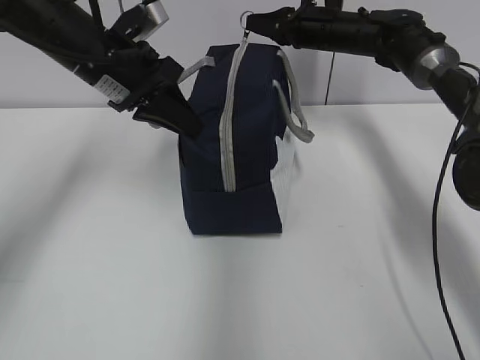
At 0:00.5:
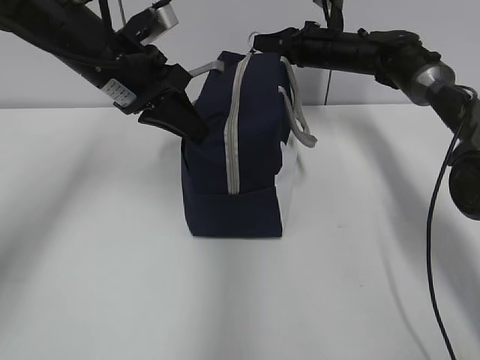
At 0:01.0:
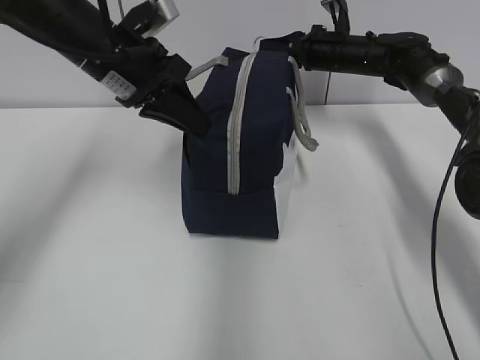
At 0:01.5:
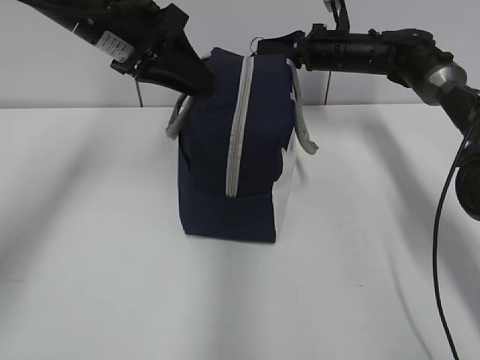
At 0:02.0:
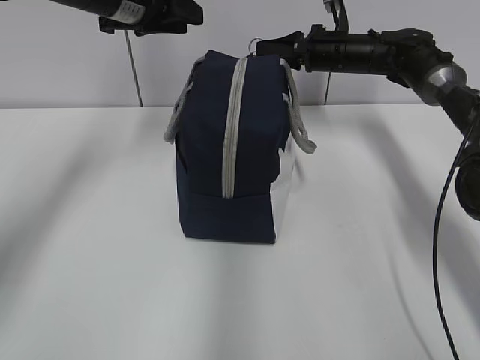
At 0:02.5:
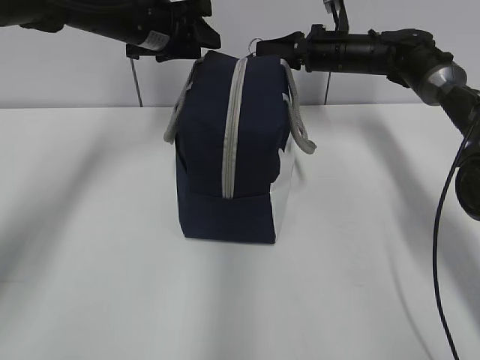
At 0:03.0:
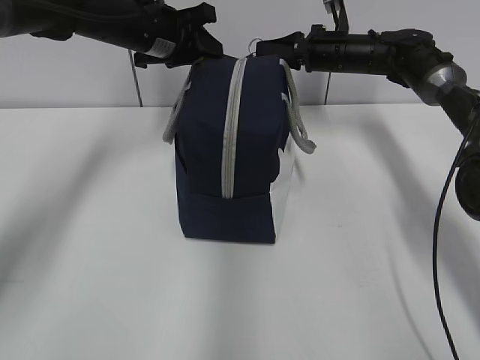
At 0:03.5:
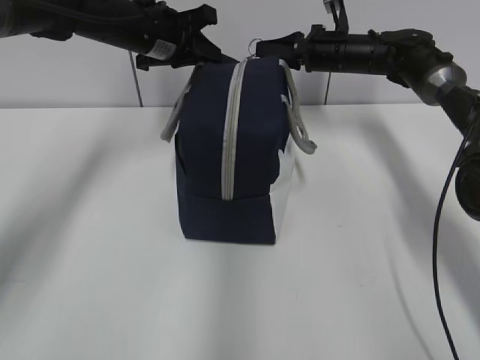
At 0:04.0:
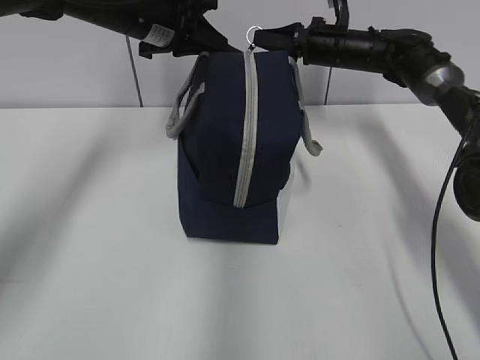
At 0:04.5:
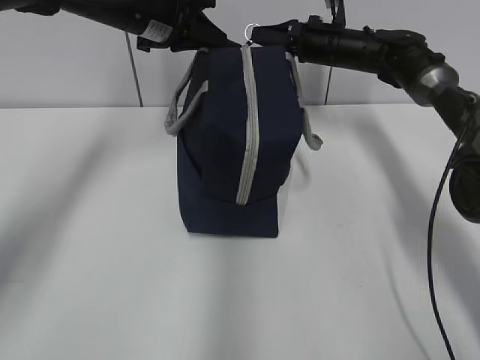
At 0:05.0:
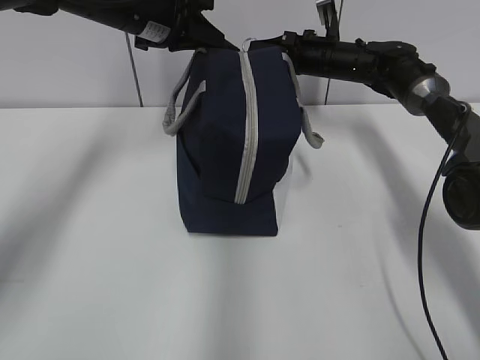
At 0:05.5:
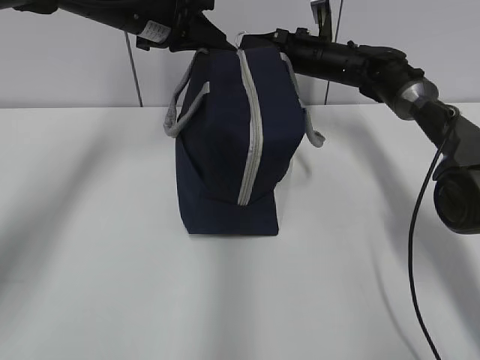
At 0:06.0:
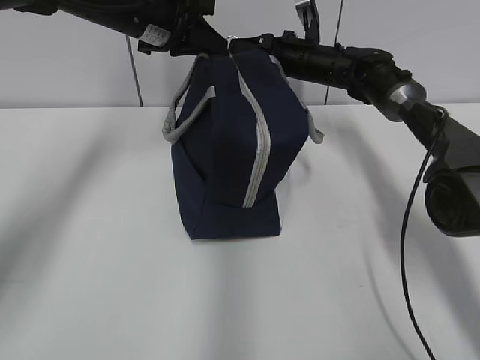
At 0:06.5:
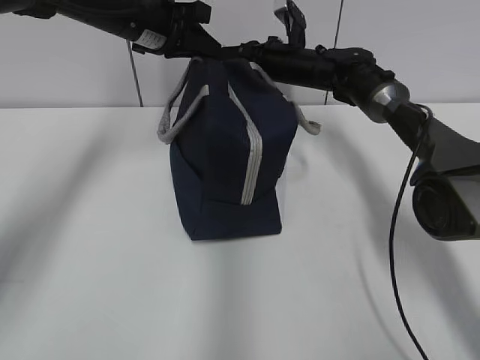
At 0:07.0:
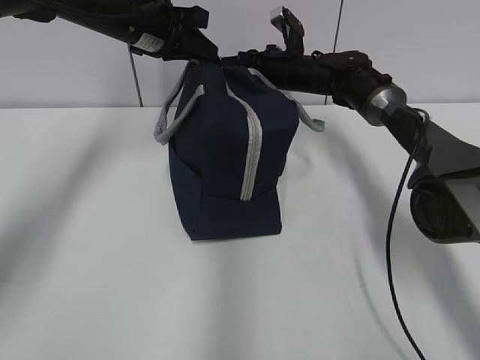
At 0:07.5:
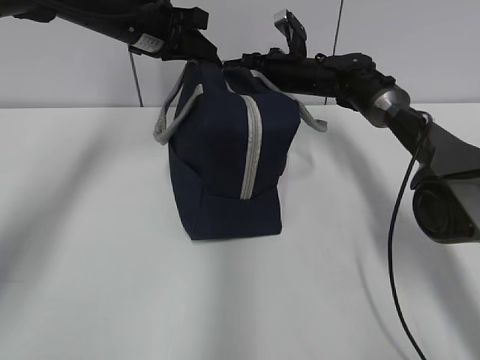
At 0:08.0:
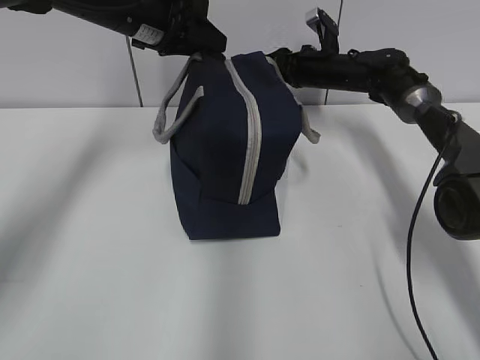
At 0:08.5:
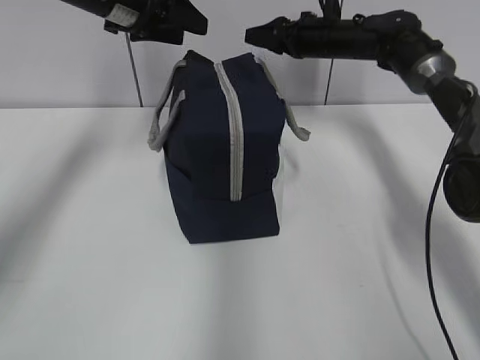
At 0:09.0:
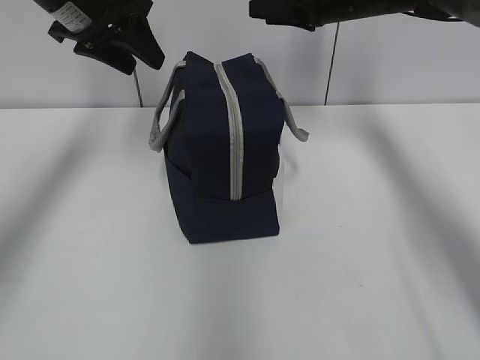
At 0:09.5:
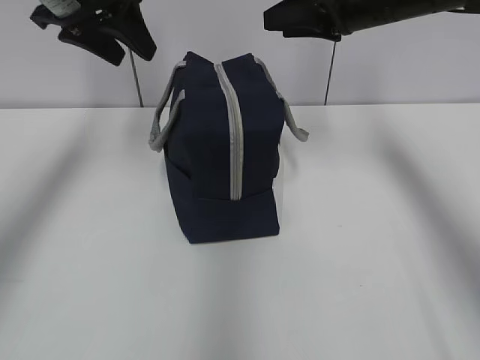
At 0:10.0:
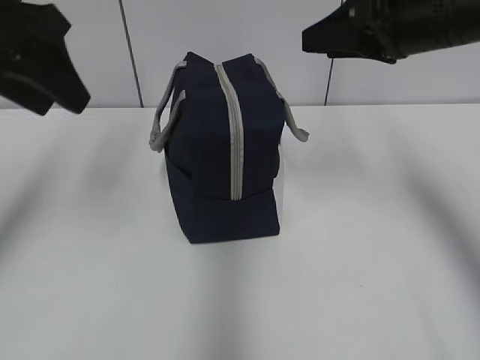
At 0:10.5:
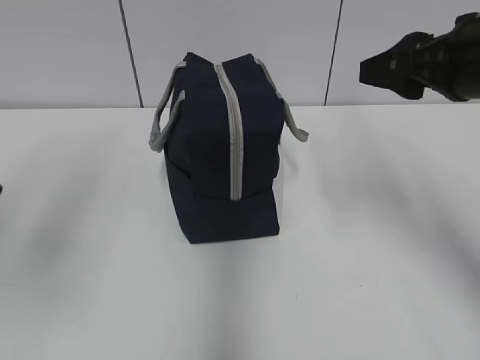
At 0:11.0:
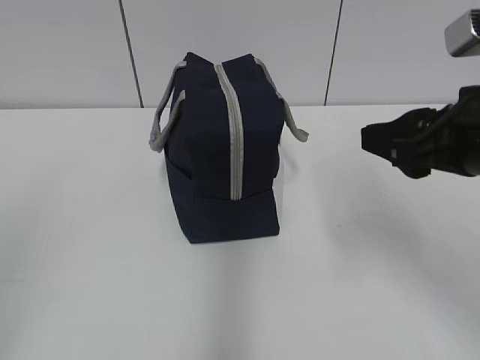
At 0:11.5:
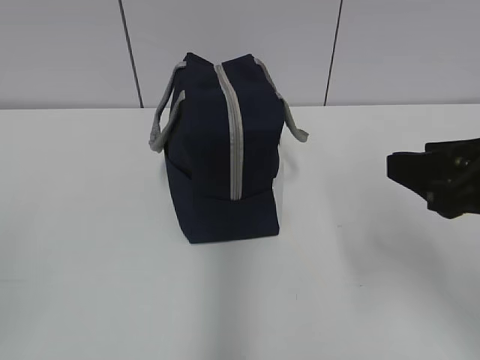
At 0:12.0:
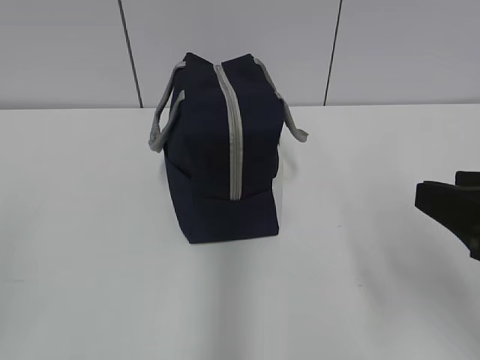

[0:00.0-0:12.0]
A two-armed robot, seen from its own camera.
Step, 0:00.0 to 0:07.5: Pull the zipper with your right hand.
0:00.0 to 0:02.0: The left gripper is displaced upward and forward by approximately 10 cm, and opens up.
0:02.0 to 0:04.0: The left gripper ends up about 5 cm from where it was, and closes.
0:06.0 to 0:08.0: The left gripper opens; the right gripper opens.
0:08.0 to 0:10.0: The left gripper heads backward, to the left and upward, covering about 20 cm. Meanwhile the right gripper shifts about 30 cm backward and upward.
0:10.0 to 0:12.0: Both grippers travel together backward, roughly 25 cm.

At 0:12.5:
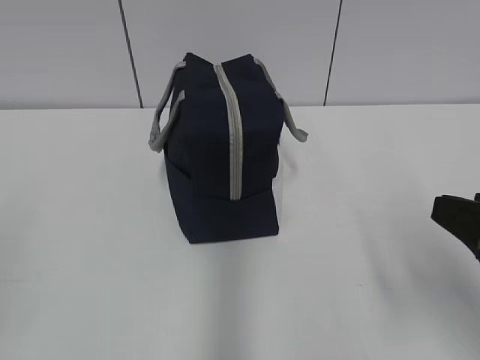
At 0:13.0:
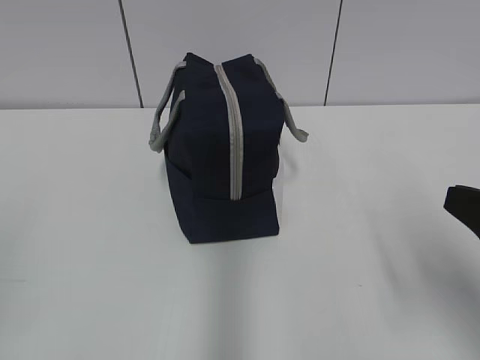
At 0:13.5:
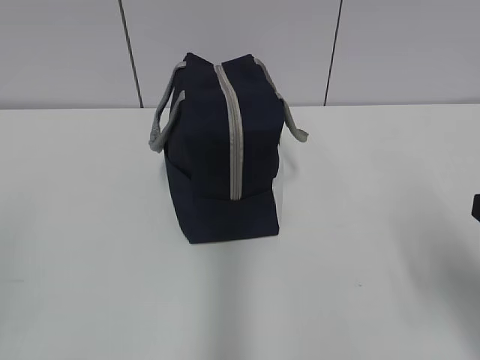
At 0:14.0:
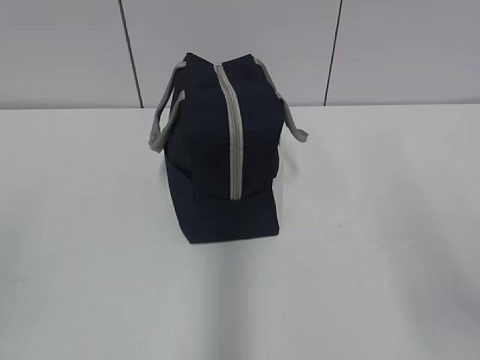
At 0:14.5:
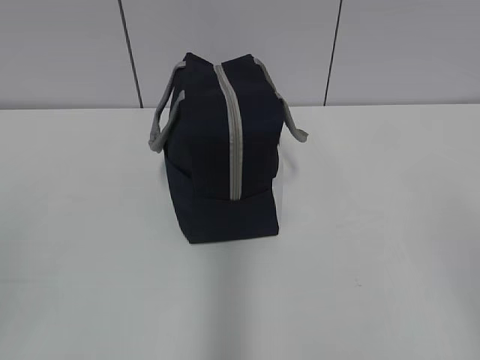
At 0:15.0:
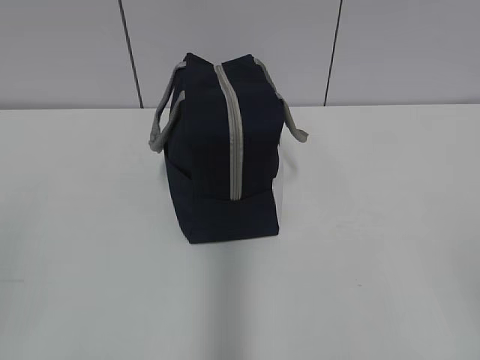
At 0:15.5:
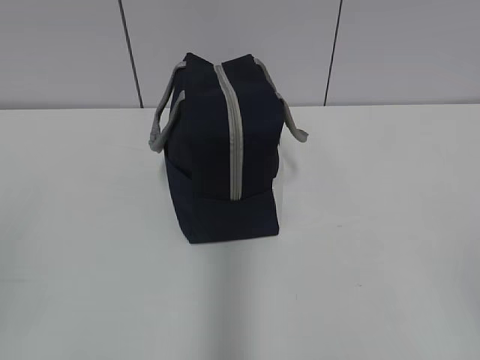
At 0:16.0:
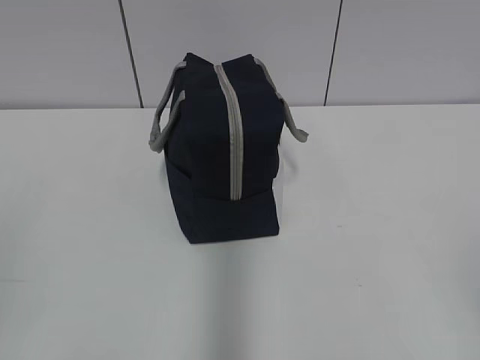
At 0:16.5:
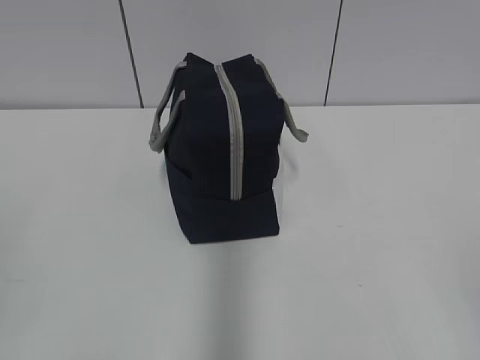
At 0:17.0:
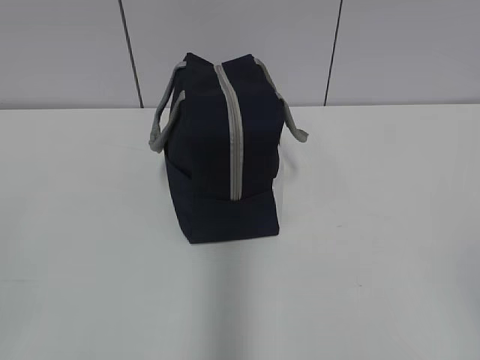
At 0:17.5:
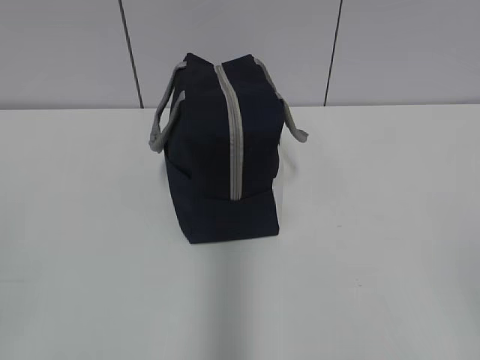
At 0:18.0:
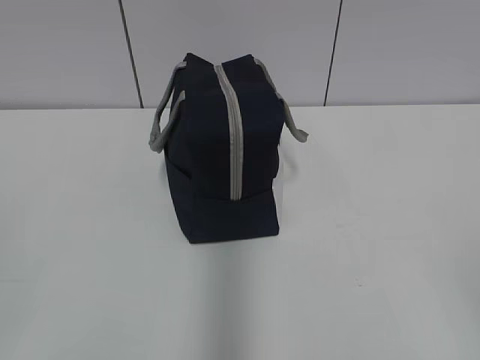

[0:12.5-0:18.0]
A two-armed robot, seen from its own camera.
0:12.5 to 0:14.5: The right gripper shifts about 15 cm backward and upward.
